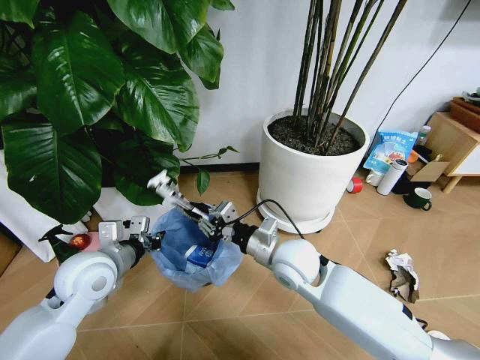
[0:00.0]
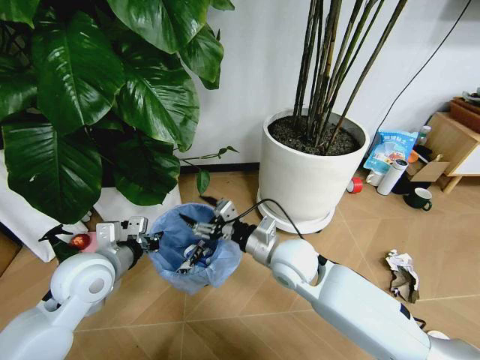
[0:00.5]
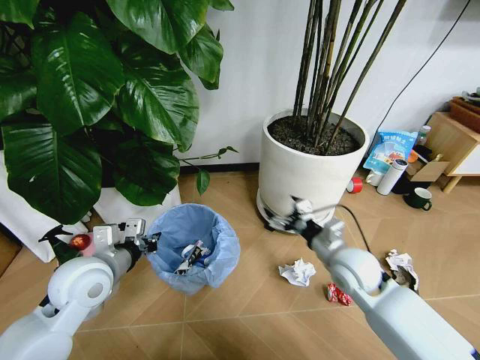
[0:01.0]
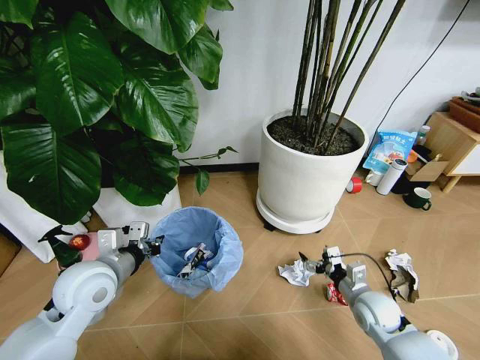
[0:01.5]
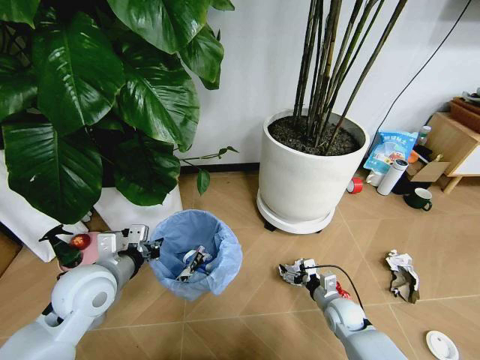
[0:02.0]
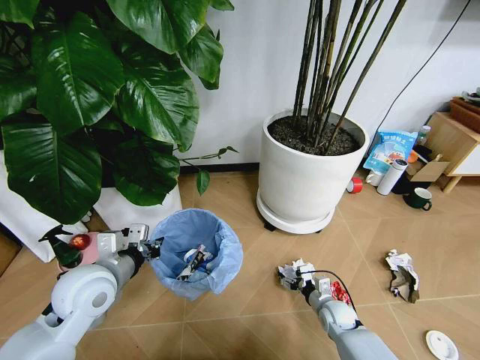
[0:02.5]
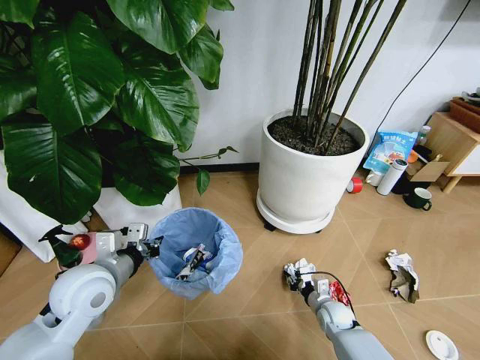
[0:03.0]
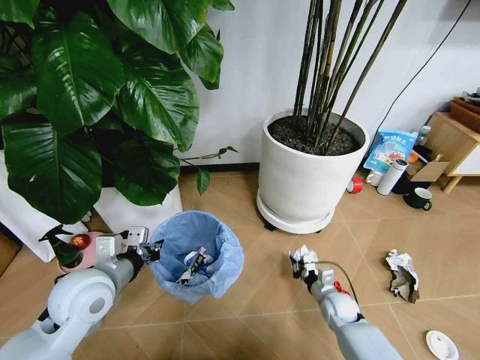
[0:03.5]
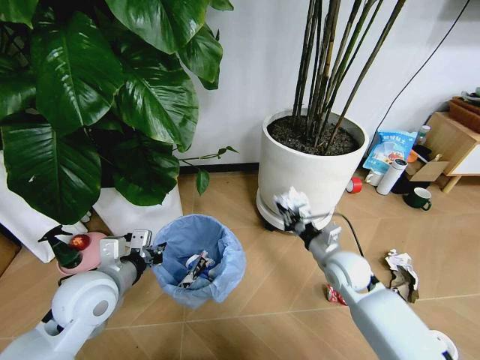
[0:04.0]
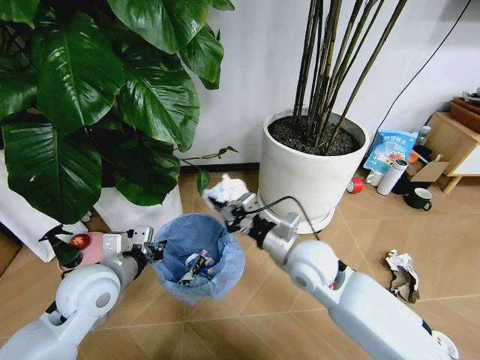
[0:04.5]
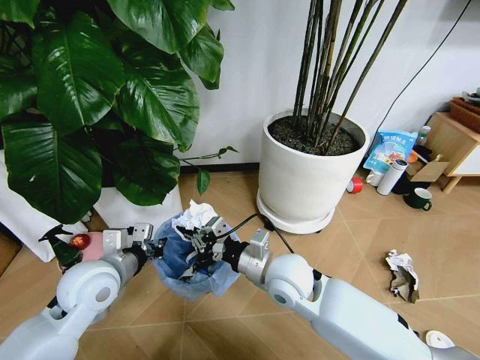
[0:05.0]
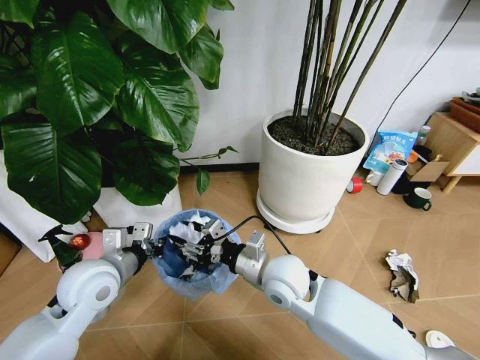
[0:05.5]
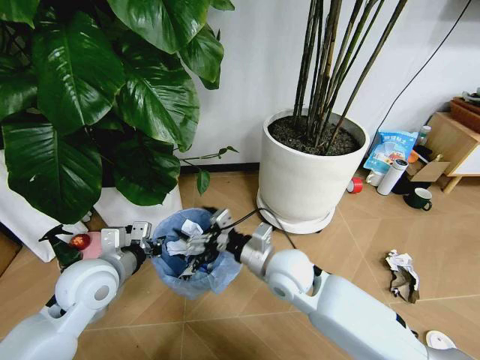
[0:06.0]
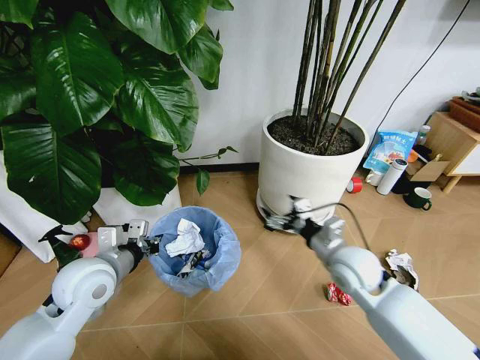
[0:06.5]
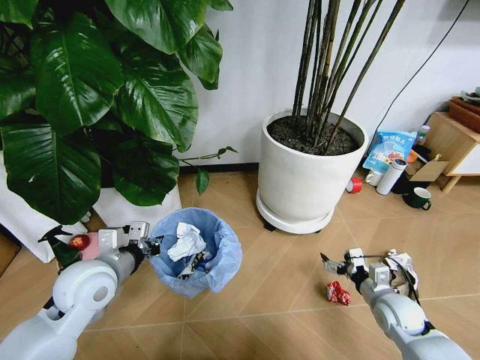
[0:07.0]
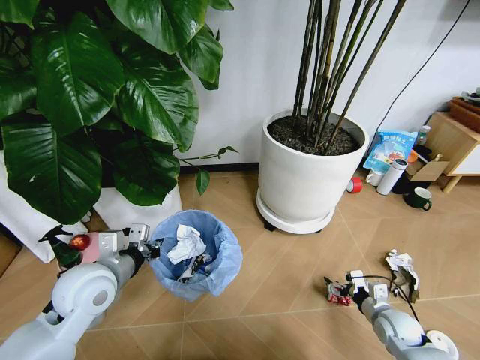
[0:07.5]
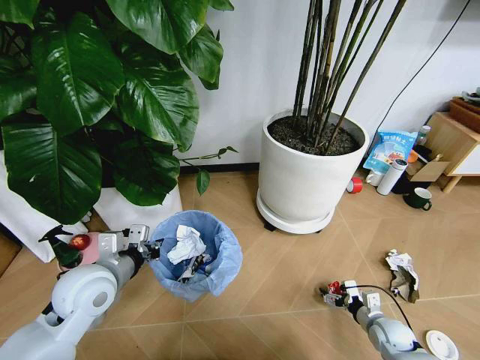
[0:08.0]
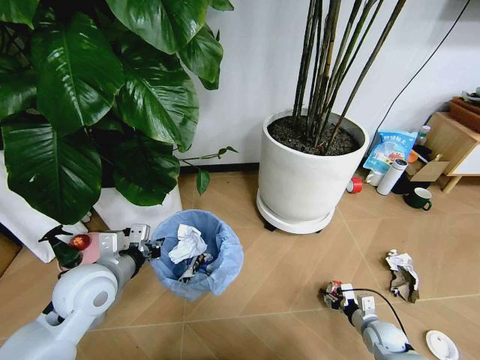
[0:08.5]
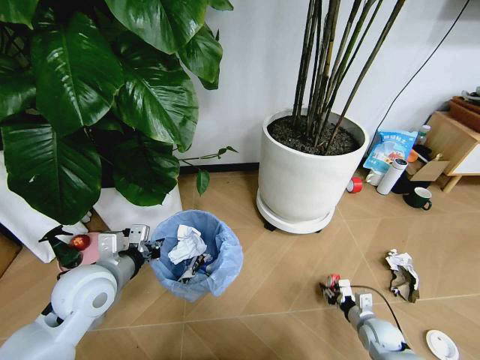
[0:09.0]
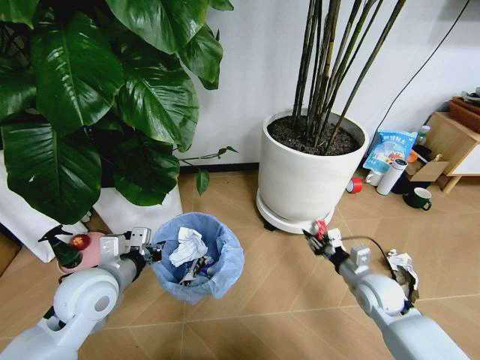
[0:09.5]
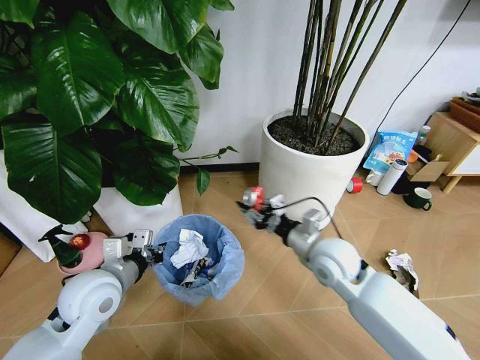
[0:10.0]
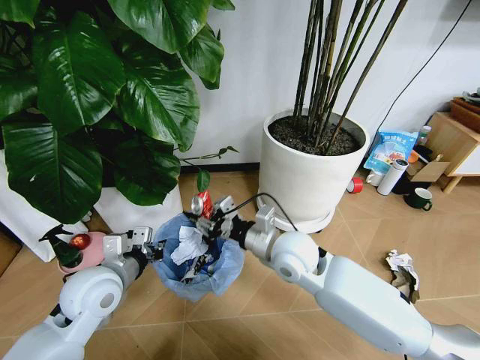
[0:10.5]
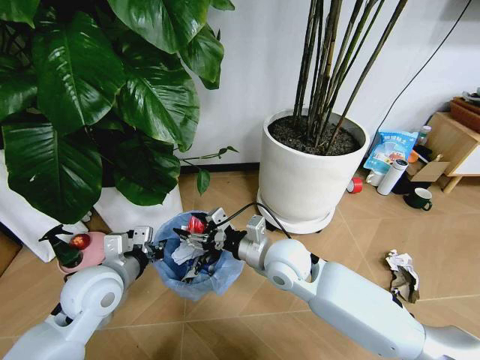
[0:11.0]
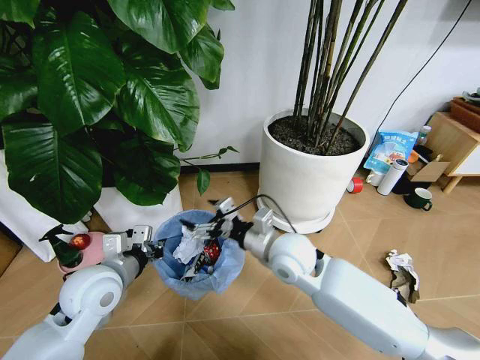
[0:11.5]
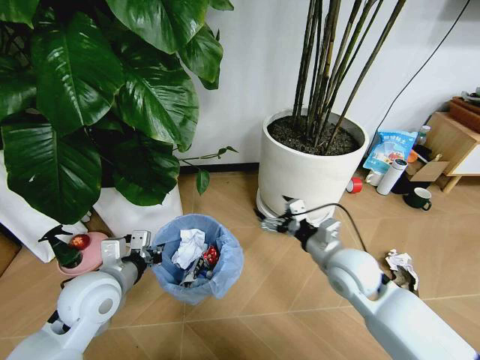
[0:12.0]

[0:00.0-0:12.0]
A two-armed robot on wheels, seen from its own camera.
Task of the whole recording: Pick up the trash bin and place the garbage on the floor into it.
0:00.0 to 0:02.0: The right gripper goes some 30 cm downward and to the right, and opens its fingers.
0:02.0 to 0:04.0: The right gripper shifts about 10 cm upward and forward, and closes its fingers.
0:04.0 to 0:06.0: The right gripper travels to the left and upward by some 20 cm, and opens its fingers.
0:06.0 to 0:08.0: The right gripper travels to the right and downward by roughly 40 cm.
0:08.0 to 0:10.0: The right gripper shifts approximately 35 cm upward and to the left, and closes.
0:10.0 to 0:12.0: The right gripper moves some 10 cm to the left and comes back, and opens.

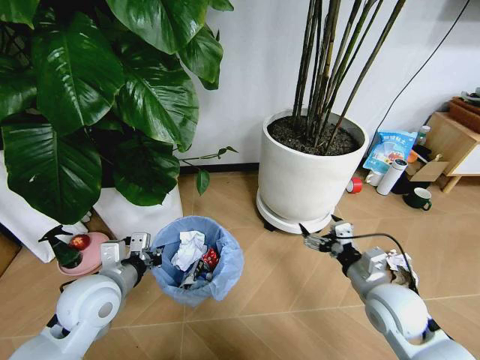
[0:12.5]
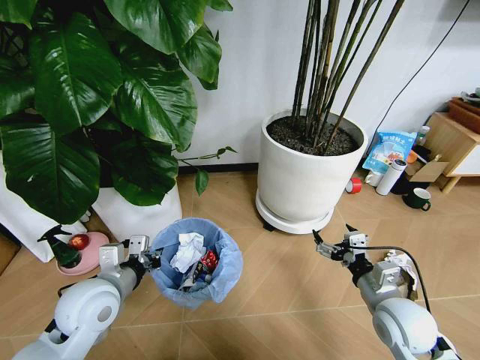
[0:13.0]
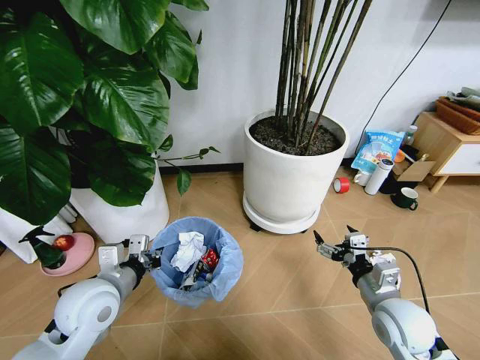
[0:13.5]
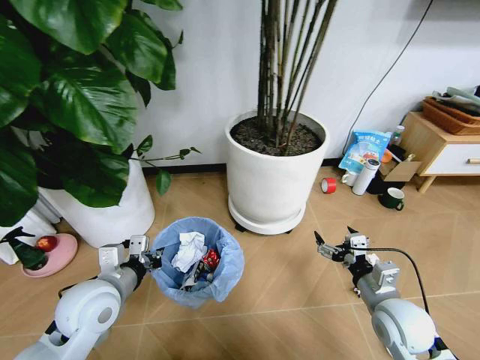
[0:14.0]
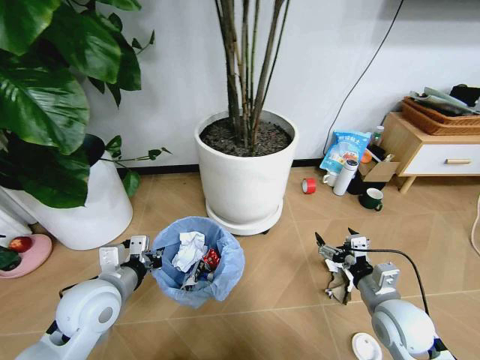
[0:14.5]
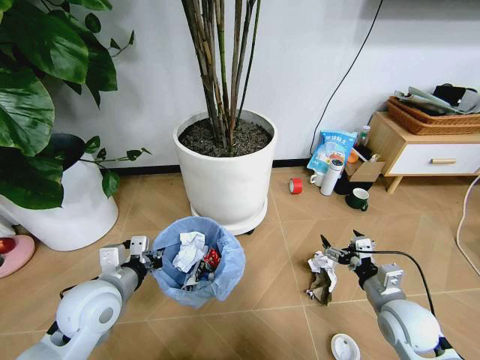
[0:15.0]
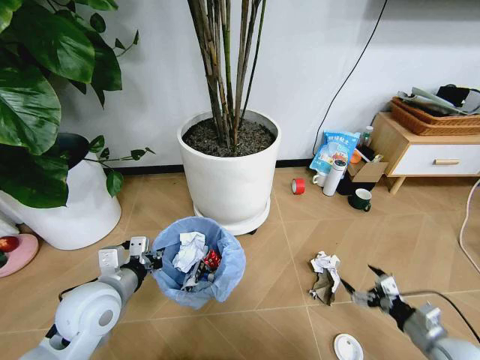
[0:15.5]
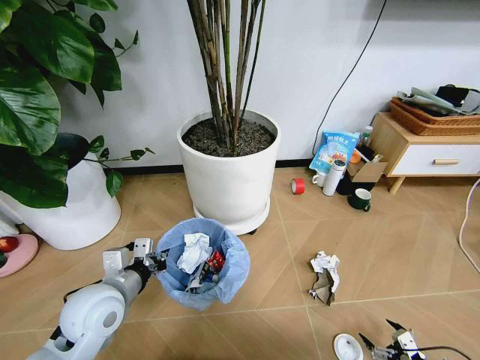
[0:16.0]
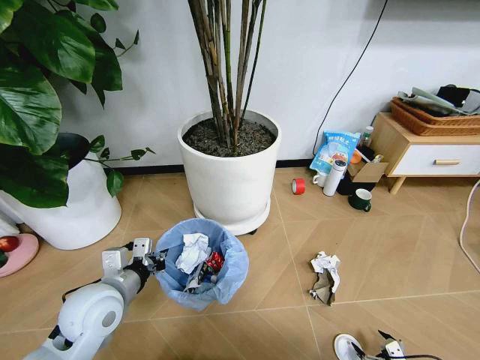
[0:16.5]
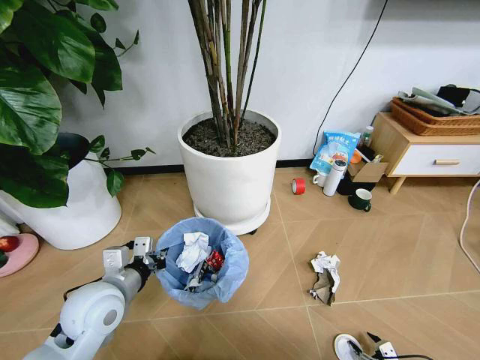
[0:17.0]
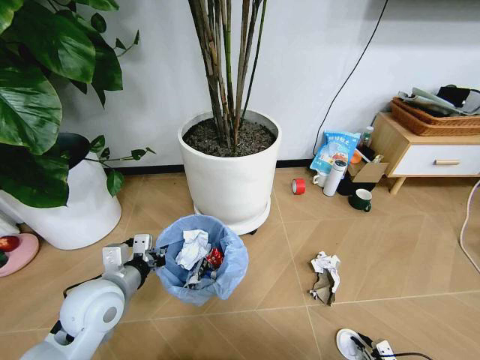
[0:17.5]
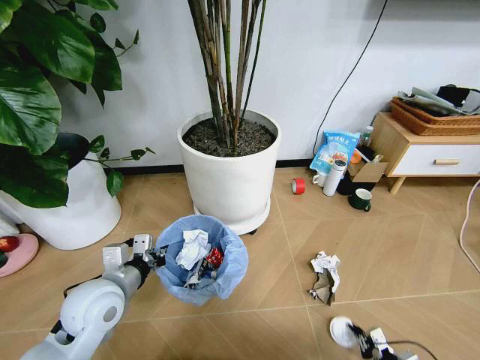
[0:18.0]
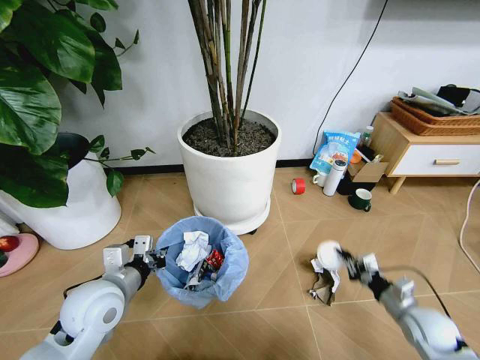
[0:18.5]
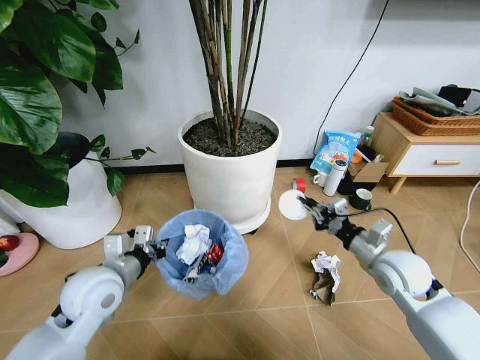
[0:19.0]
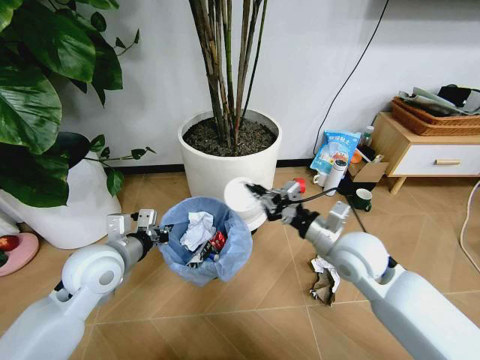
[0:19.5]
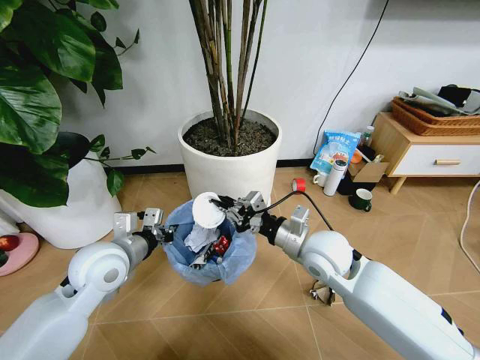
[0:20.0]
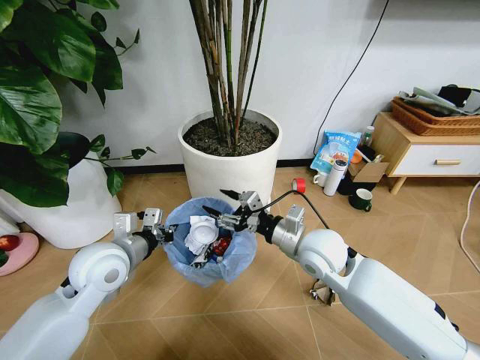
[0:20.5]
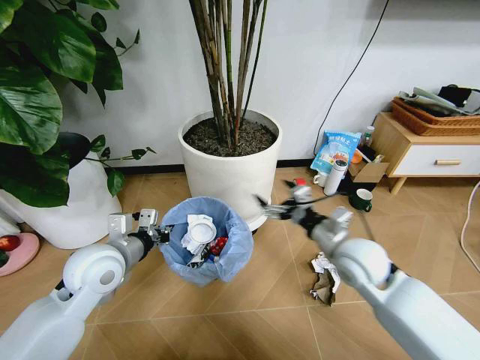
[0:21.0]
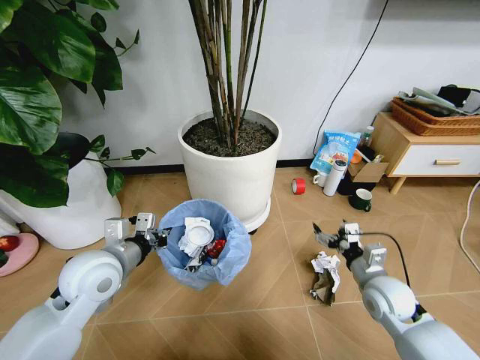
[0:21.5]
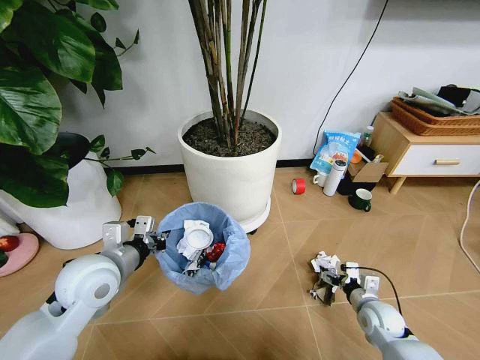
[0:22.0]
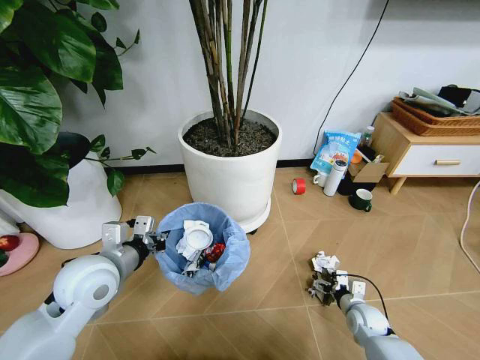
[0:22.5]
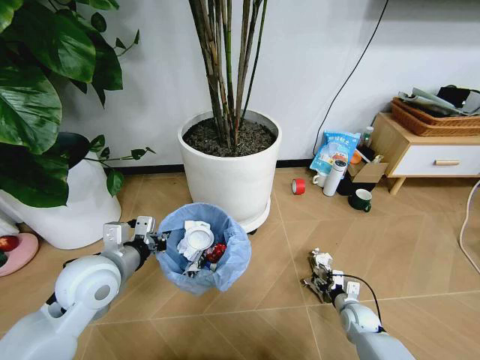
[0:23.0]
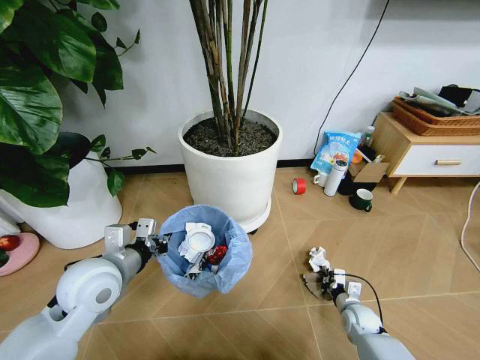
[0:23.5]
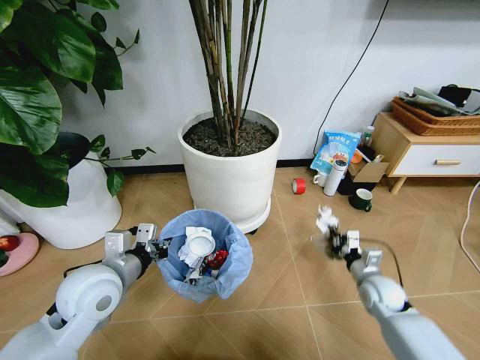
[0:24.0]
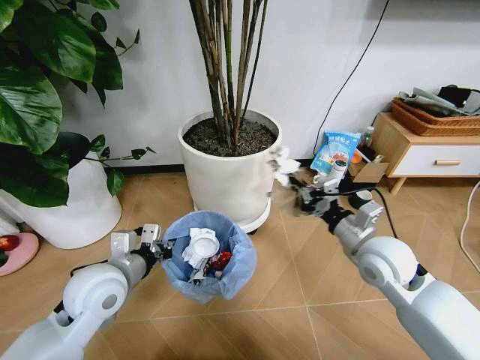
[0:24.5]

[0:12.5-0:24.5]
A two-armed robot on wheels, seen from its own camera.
Task of the whole recording: Pick up the trash bin and place the garbage on the floor into it.
0:14.5 to 0:16.5: The right gripper shifts some 30 cm downward, backward and to the right.
0:16.5 to 0:18.5: The right gripper moves forward and upward, about 20 cm, and closes its fingers.
0:18.5 to 0:20.5: The left gripper moves forward, roughly 5 cm; the right gripper travels to the left, upward and forward by roughly 35 cm, and opens up.
0:20.5 to 0:22.5: The right gripper heads downward and to the right, covering about 35 cm, and opens its fingers.
0:22.5 to 0:24.5: The right gripper moves upward, approximately 30 cm, and closes its fingers.

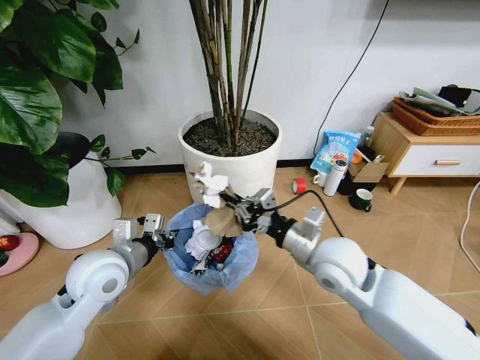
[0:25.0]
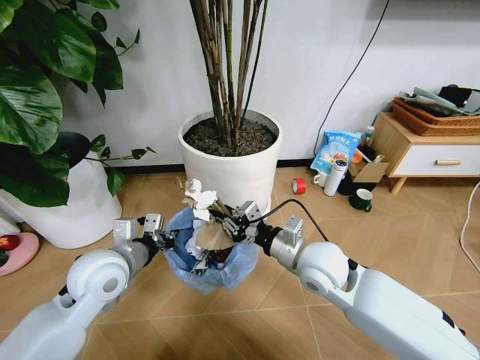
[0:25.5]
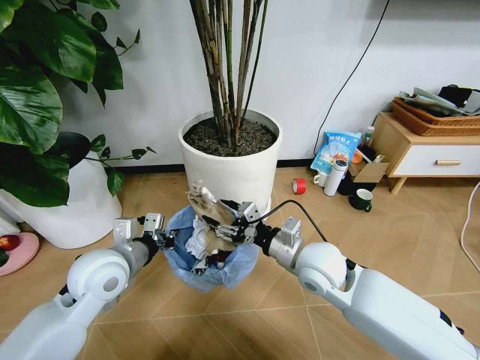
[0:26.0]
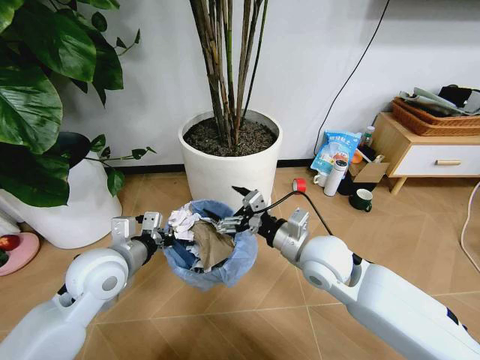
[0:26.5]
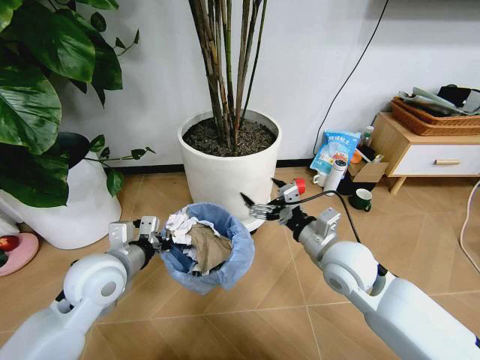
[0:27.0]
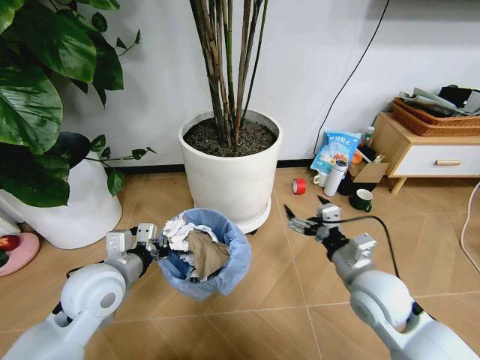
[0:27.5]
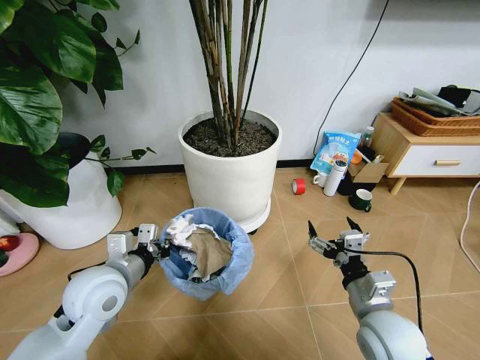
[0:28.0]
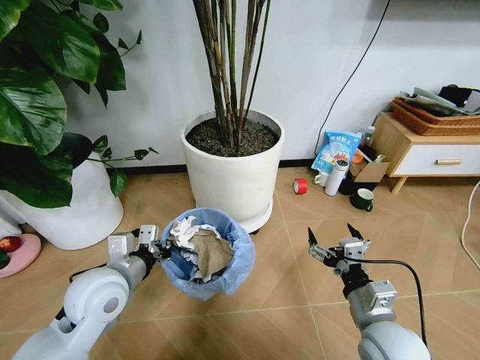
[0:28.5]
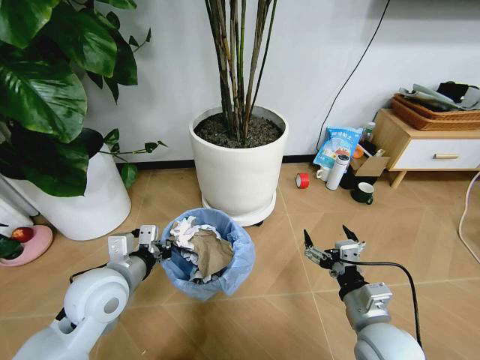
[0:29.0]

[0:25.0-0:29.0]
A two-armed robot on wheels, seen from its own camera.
Task of the whole recording: Pick up the trash bin and place the garbage on the floor into it.
0:25.0 to 0:27.0: The right gripper opens.
0:27.0 to 0:29.0: The right gripper moves backward and downward, approximately 15 cm.
